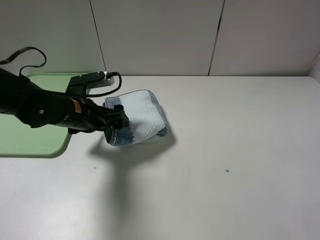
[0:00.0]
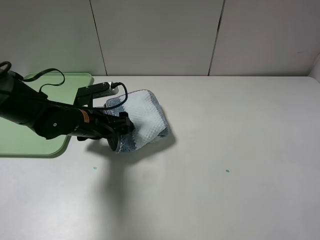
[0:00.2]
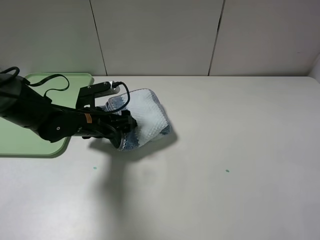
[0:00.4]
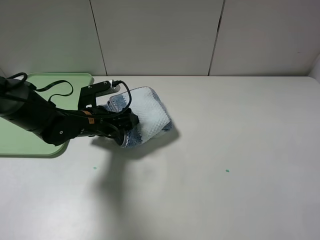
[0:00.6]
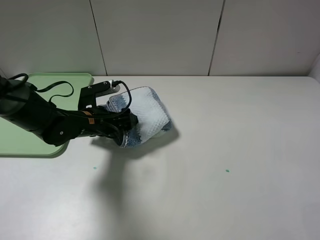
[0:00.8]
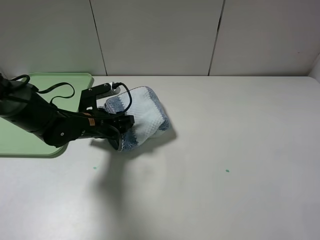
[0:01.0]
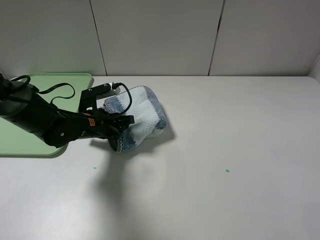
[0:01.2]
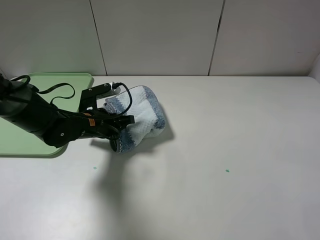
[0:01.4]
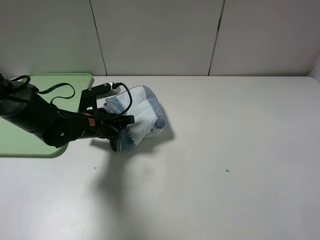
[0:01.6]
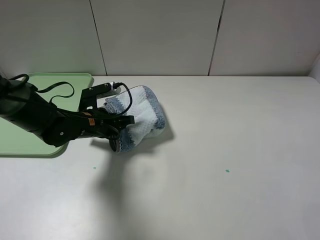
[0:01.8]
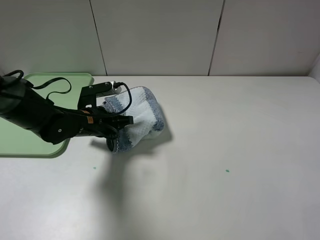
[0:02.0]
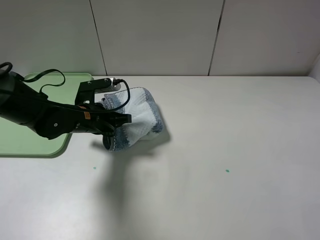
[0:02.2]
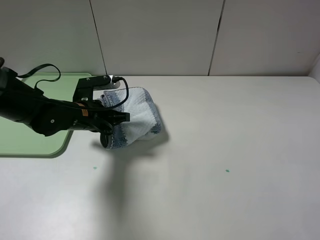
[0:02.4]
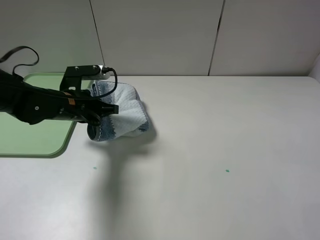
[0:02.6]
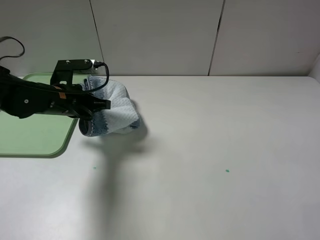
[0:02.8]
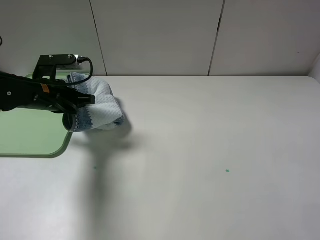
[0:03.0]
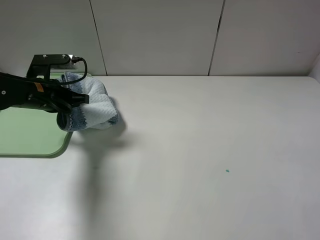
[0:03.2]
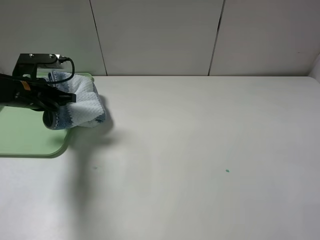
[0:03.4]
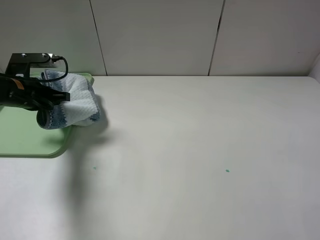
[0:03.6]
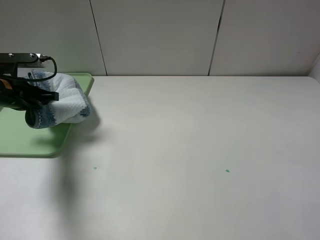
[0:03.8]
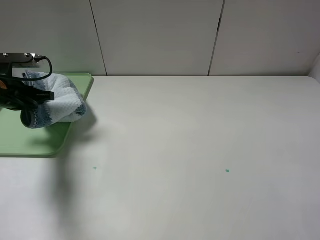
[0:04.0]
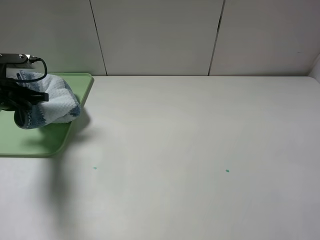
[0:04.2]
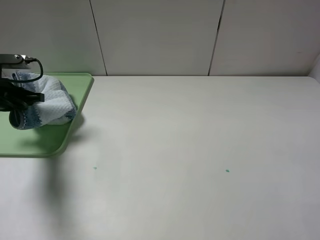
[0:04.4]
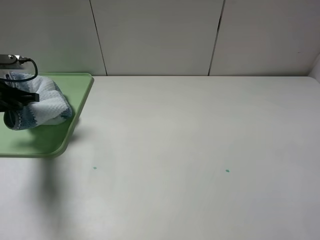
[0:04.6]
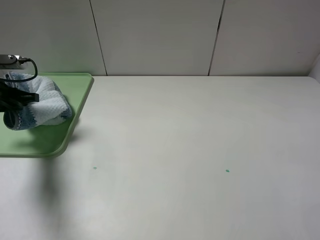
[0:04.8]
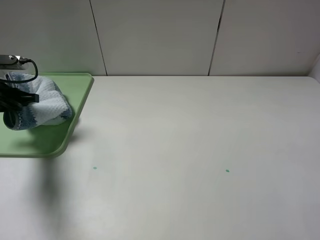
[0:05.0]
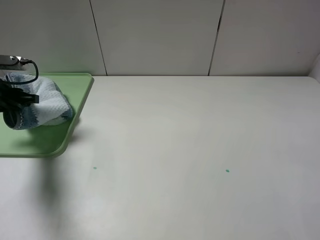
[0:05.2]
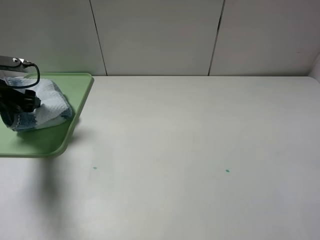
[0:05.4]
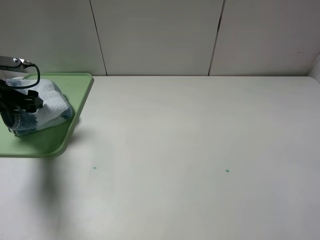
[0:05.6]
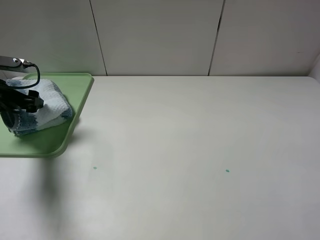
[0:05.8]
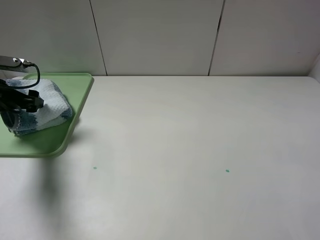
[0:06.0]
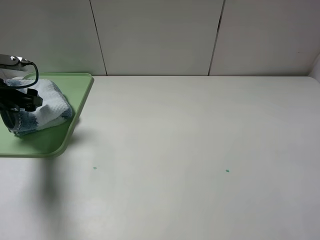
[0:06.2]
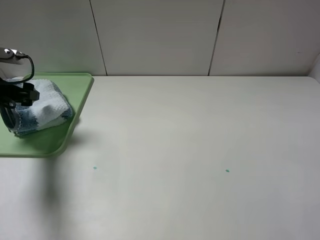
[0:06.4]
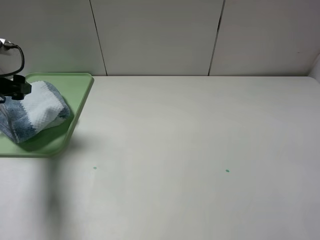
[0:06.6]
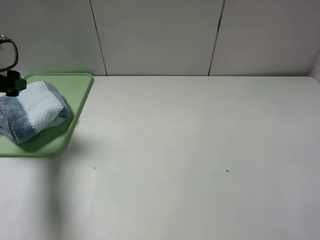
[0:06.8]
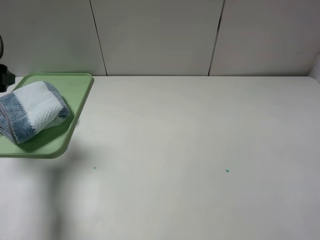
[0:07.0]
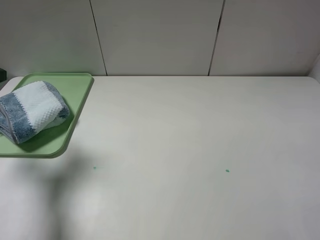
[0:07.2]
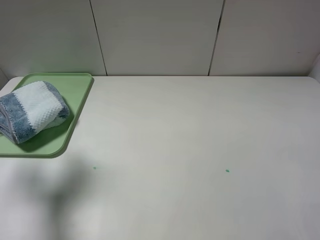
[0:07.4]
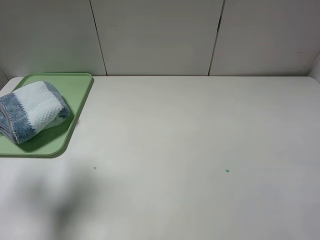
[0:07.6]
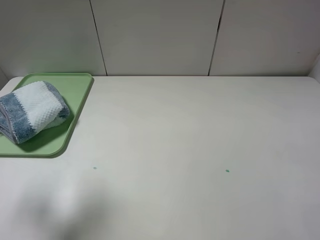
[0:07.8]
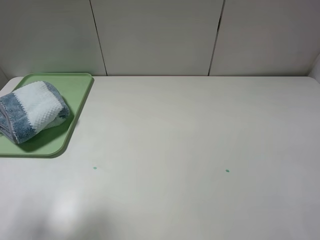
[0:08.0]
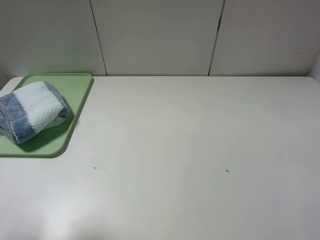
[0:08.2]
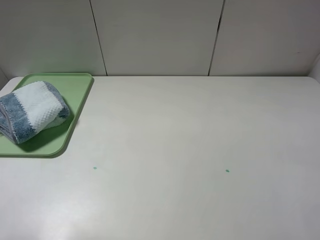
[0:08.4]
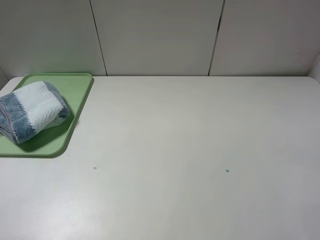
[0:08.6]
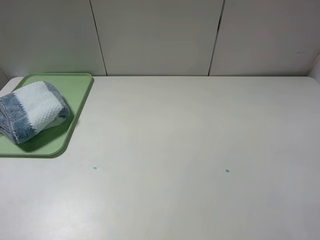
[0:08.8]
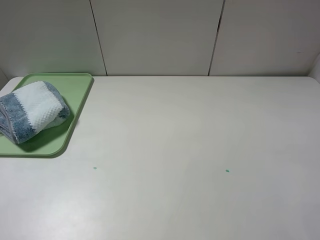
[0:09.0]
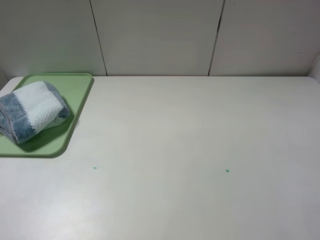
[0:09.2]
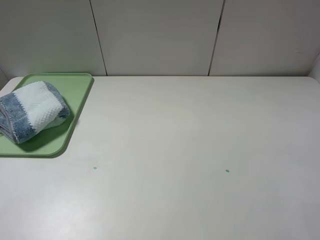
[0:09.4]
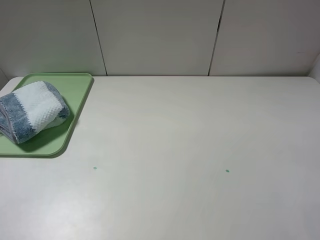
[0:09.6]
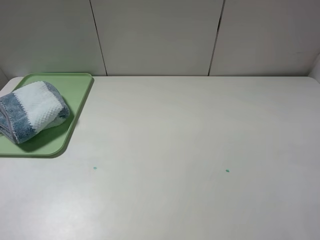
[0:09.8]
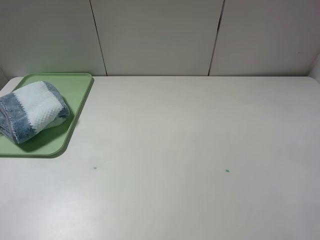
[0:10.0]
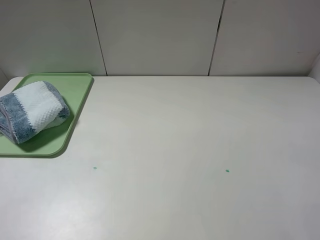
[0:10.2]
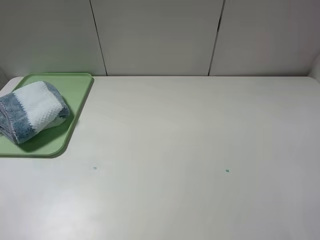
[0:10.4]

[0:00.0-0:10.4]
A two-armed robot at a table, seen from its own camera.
0:00.0 to 0:01.4: The left gripper closes.
0:01.4 to 0:03.0: The left gripper heads to the left and upward, covering approximately 10 cm.
0:03.0 to 0:04.4: The left gripper shifts some 10 cm to the left.
0:04.4 to 0:06.0: The left gripper opens.
0:06.0 to 0:07.4: The left gripper is displaced upward and backward by some 15 cm.
0:07.4 to 0:09.0: The left gripper is displaced backward by roughly 20 cm.

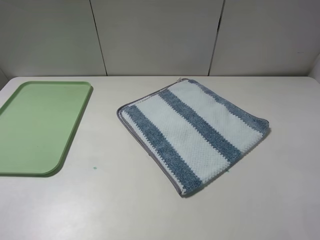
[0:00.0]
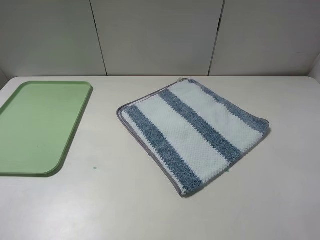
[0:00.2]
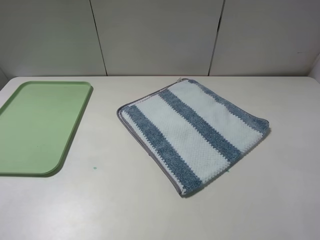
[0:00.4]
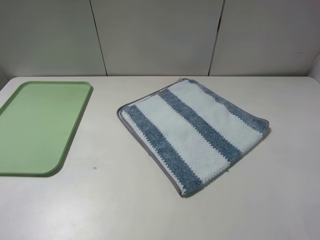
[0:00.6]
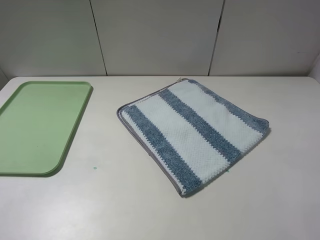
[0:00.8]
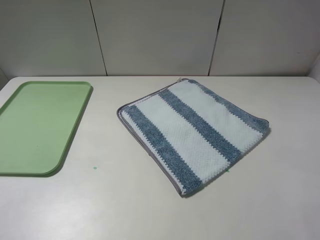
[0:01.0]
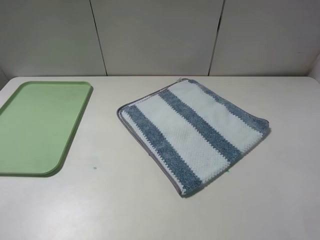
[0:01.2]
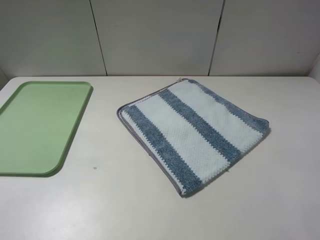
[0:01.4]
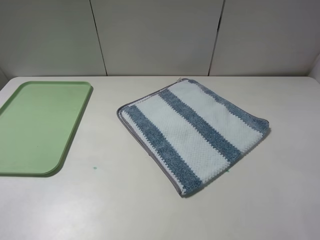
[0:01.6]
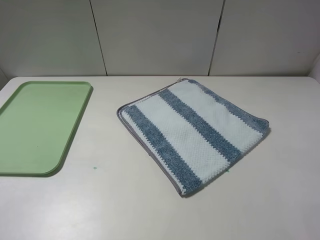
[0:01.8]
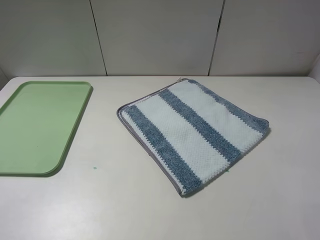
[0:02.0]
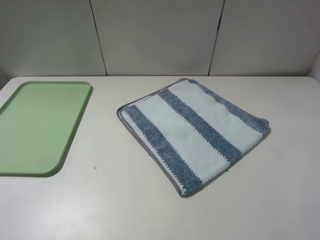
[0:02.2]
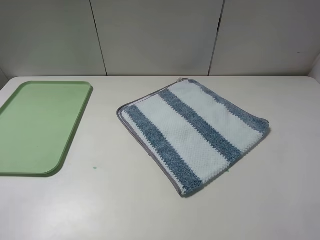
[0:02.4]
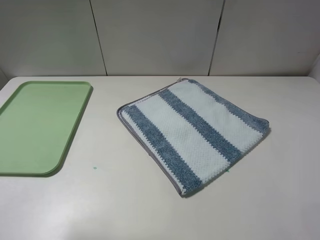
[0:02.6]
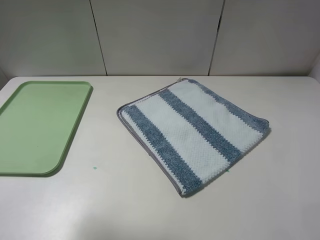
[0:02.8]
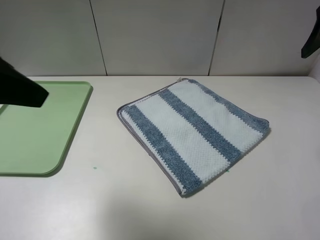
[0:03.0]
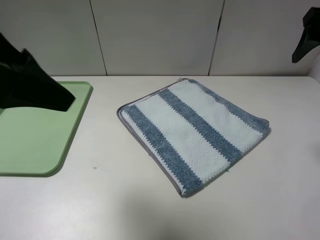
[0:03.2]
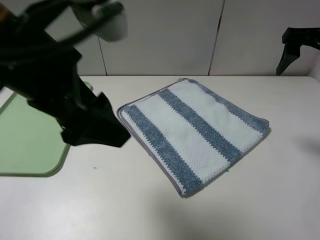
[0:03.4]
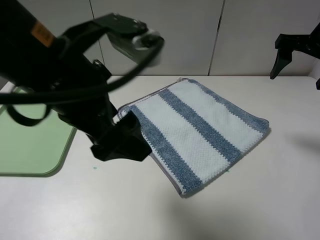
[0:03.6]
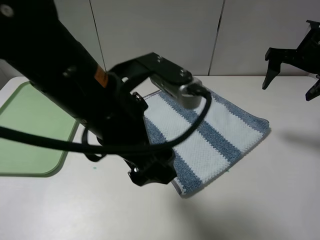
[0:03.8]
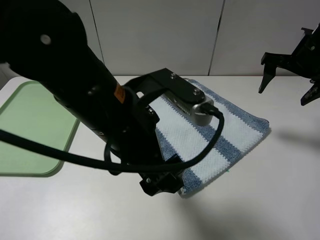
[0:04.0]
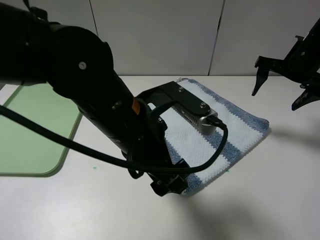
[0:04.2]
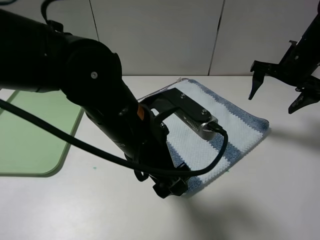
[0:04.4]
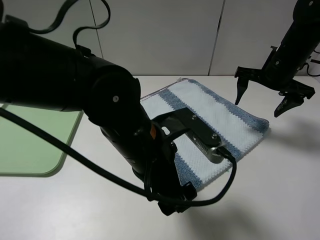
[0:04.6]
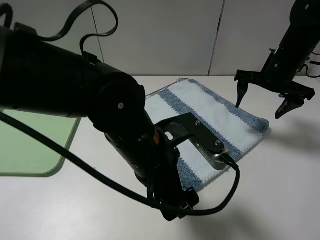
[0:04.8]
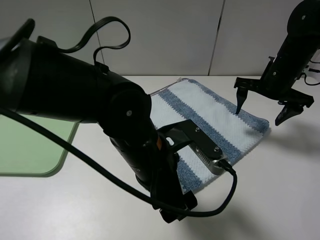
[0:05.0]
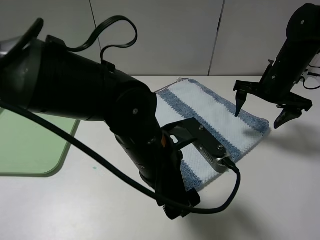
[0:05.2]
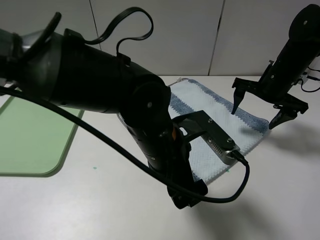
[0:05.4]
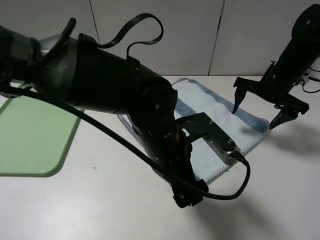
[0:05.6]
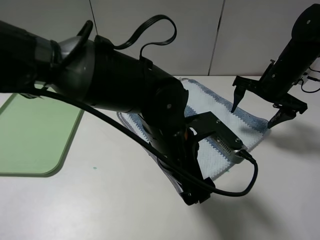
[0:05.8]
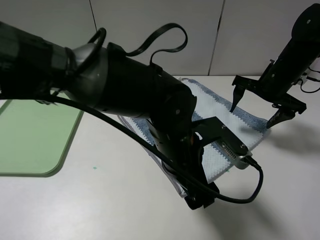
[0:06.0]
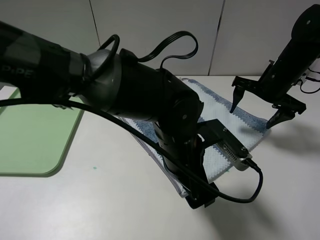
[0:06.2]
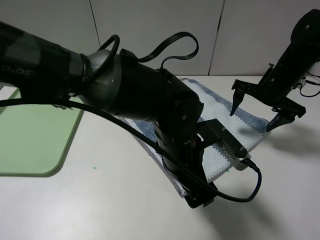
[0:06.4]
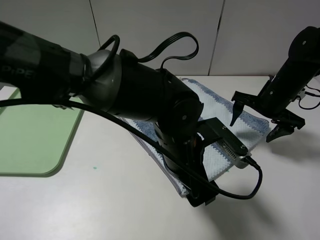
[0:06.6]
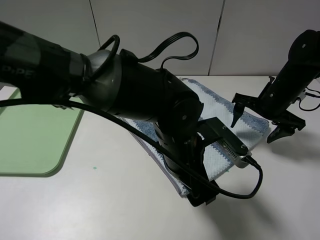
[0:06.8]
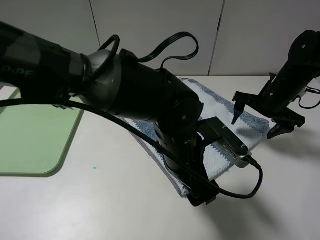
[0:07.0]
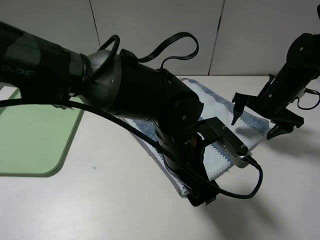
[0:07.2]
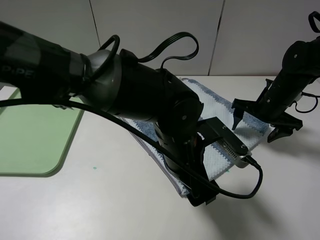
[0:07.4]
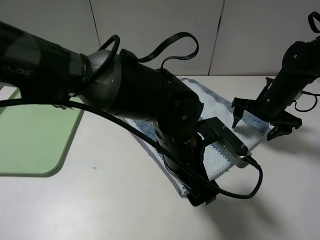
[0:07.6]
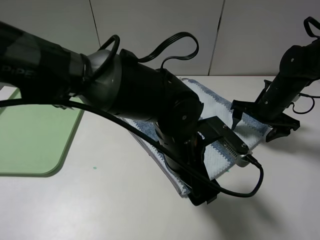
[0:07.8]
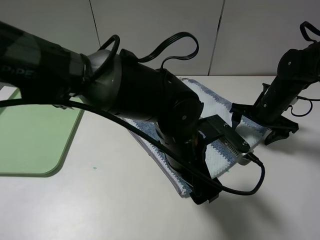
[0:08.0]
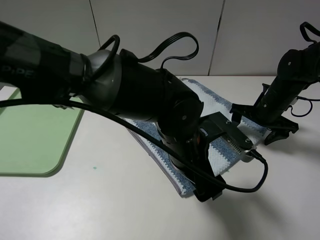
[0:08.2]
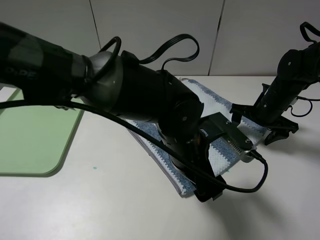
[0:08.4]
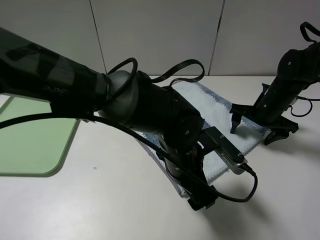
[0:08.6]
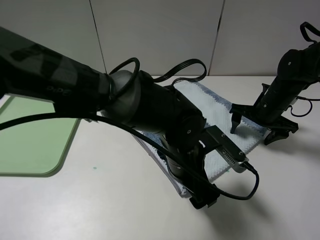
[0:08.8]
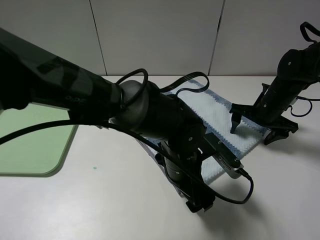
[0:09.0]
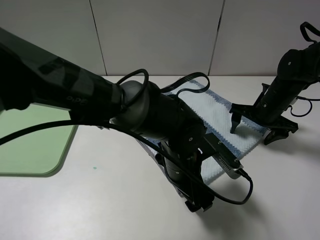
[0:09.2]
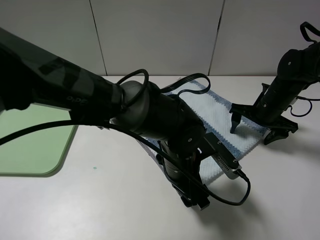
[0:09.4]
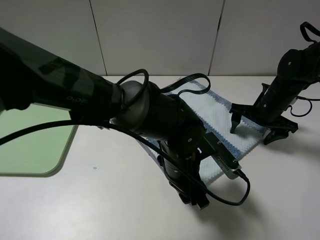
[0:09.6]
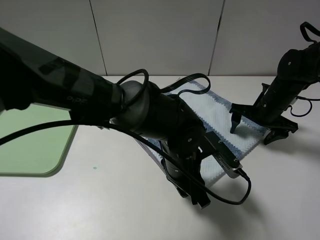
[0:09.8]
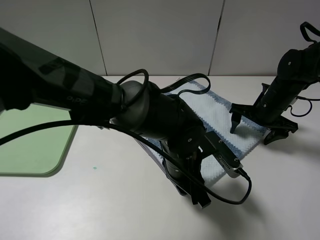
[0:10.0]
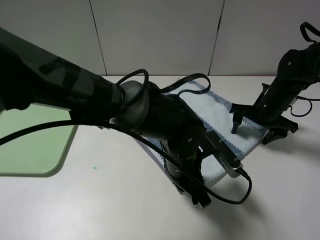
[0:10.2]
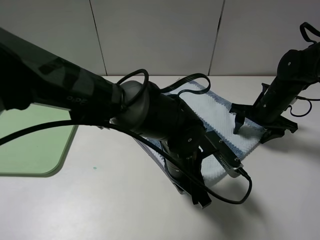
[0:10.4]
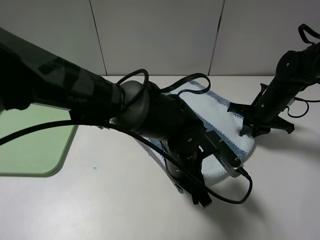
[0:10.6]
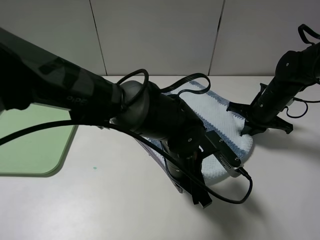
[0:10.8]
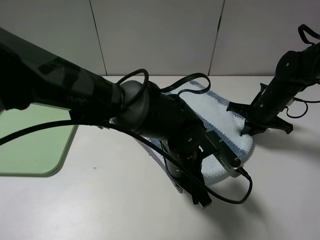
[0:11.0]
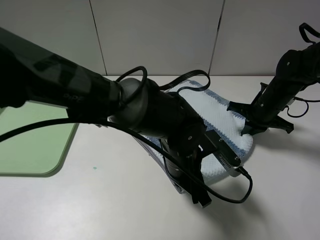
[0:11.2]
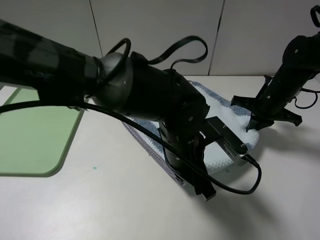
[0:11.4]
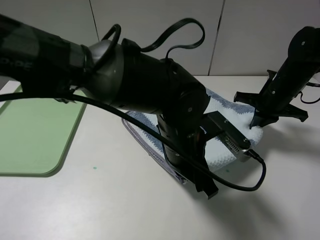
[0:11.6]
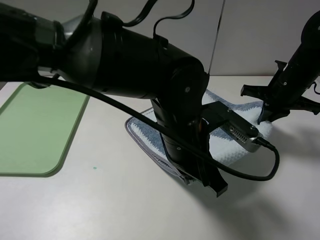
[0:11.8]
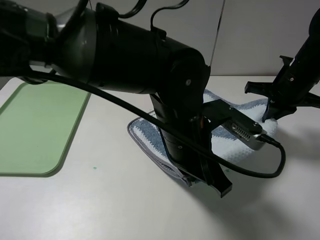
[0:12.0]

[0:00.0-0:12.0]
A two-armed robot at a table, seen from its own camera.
Step, 0:00.0 to 0:11.2: Grasp the blue white towel with the left gripper.
0:00.0 to 0:01.6: The two grippers keep their place.
0:01.6 to 0:03.0: The right gripper is displaced forward by approximately 30 cm; the left gripper heads forward, upward and to the right, covering about 20 cm.
0:03.0 to 0:04.4: The right gripper heads downward and forward, covering about 15 cm. The left gripper moves to the right and downward, approximately 25 cm.
0:04.4 to 0:06.0: The left gripper travels to the right and downward by about 10 cm.
0:06.0 to 0:07.6: The right gripper moves downward, approximately 5 cm.
0:09.0 to 0:10.4: The left gripper closes its fingers.
0:10.4 to 0:12.0: The two grippers go about 10 cm upward. The right gripper closes its fingers.
